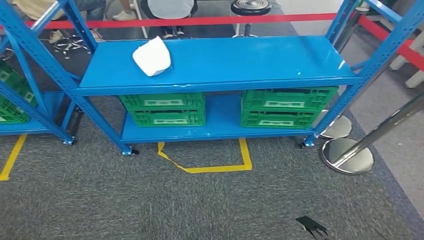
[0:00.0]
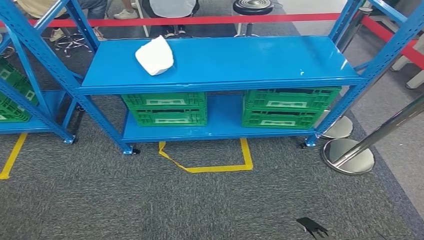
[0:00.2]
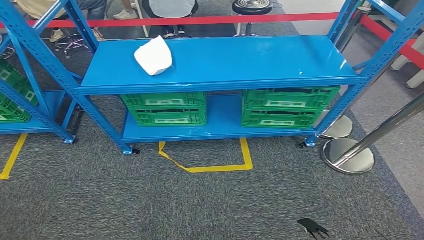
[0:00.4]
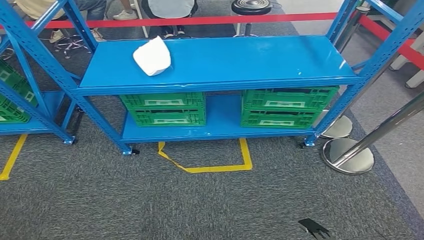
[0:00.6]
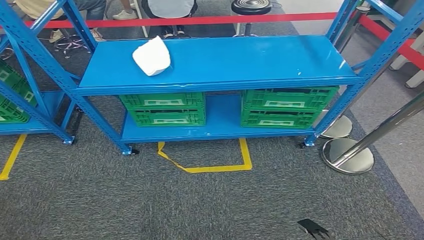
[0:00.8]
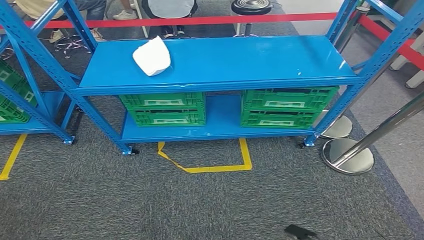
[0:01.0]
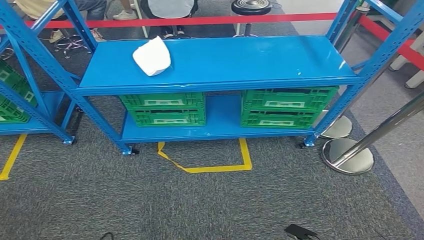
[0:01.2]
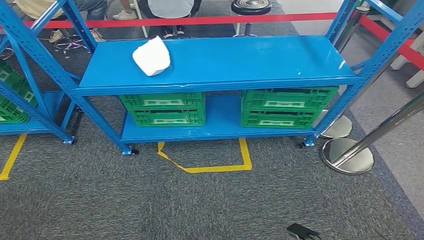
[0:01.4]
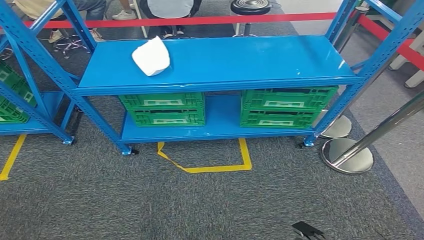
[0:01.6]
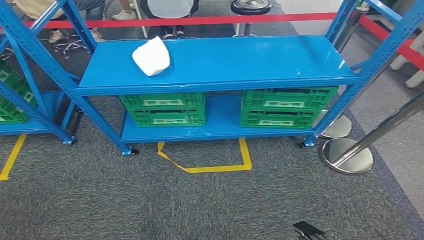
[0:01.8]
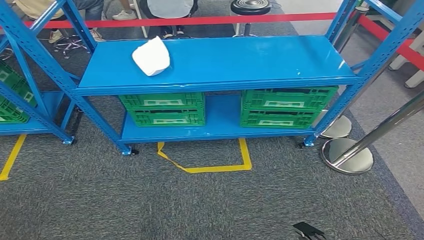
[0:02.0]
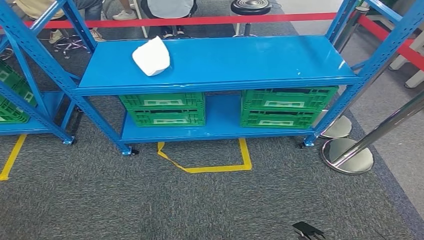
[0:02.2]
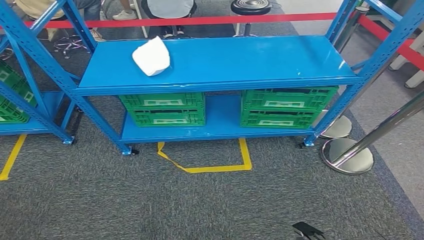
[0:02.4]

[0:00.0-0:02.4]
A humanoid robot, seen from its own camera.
Step, 0:00.0 to 0:02.4: Move to the initial position at the workbench.
